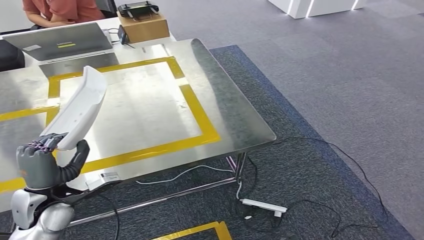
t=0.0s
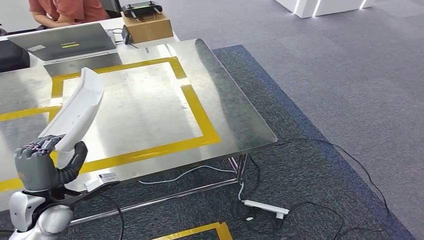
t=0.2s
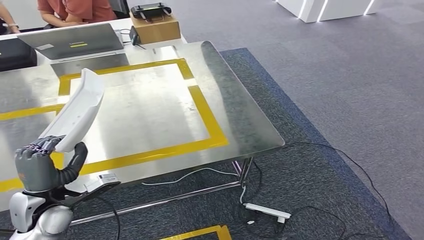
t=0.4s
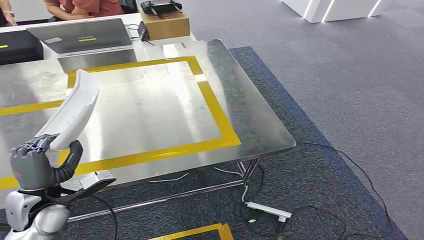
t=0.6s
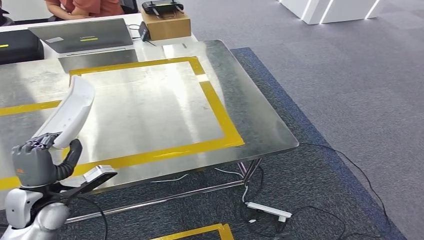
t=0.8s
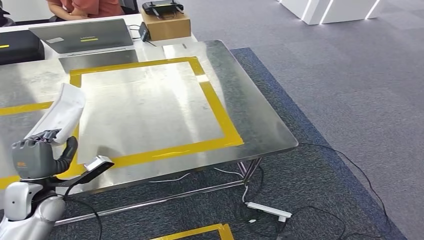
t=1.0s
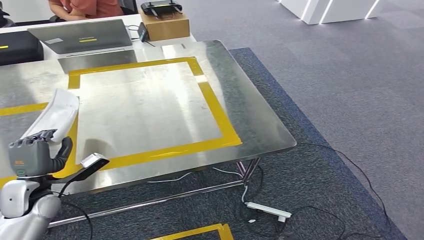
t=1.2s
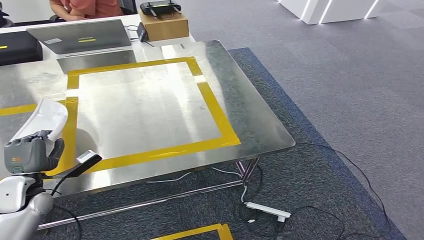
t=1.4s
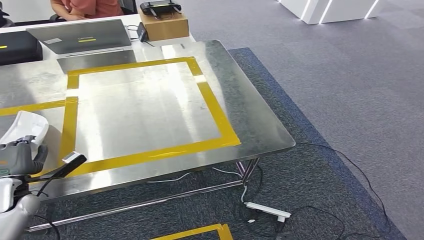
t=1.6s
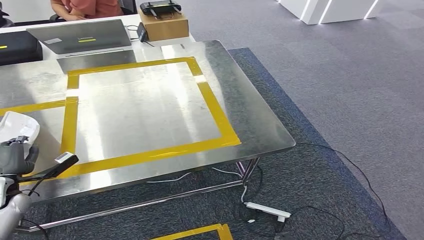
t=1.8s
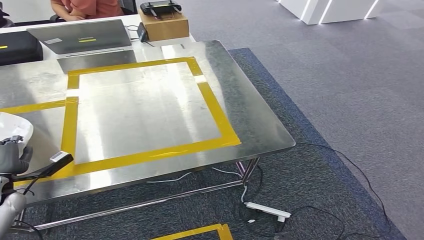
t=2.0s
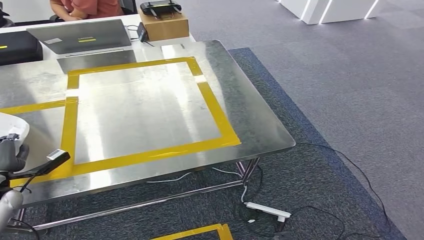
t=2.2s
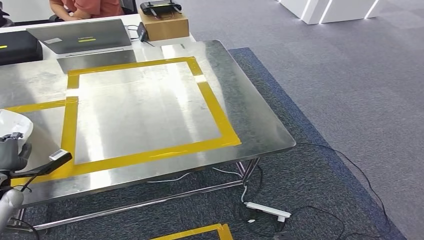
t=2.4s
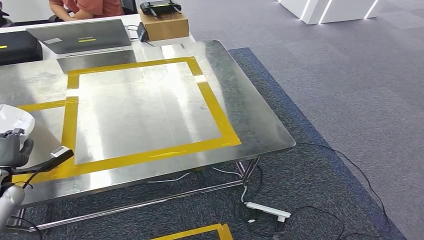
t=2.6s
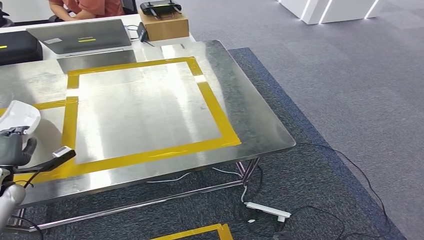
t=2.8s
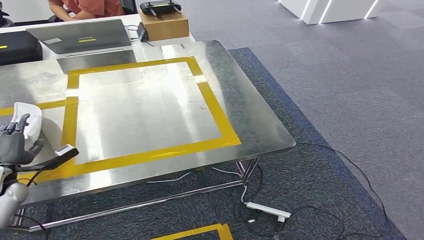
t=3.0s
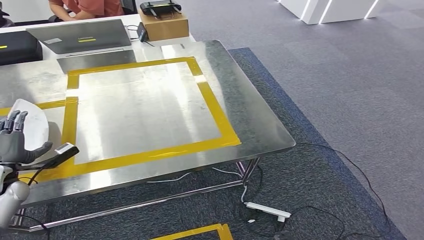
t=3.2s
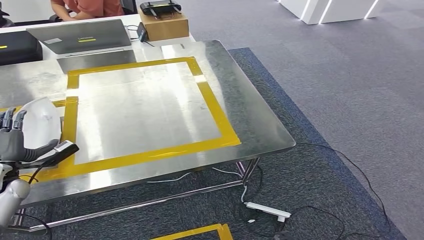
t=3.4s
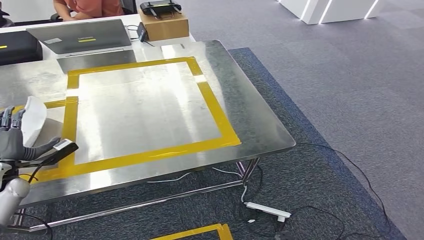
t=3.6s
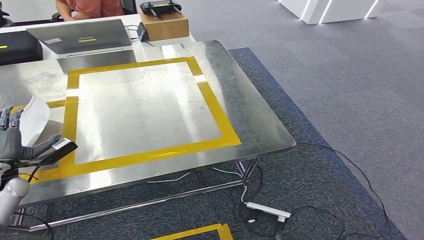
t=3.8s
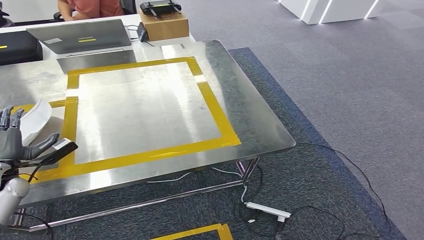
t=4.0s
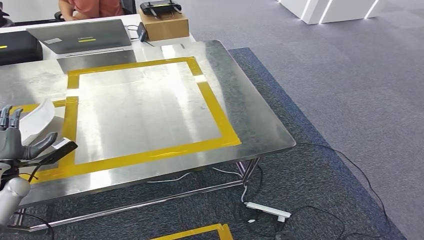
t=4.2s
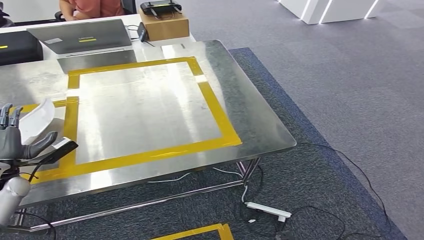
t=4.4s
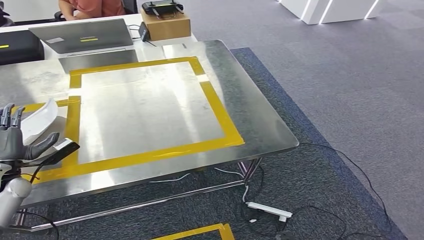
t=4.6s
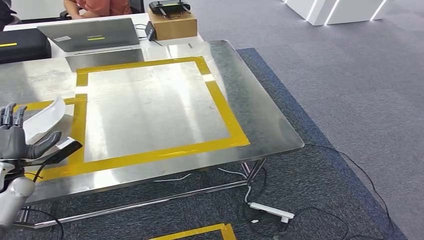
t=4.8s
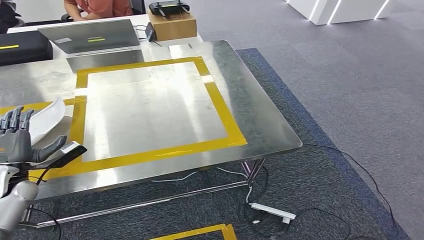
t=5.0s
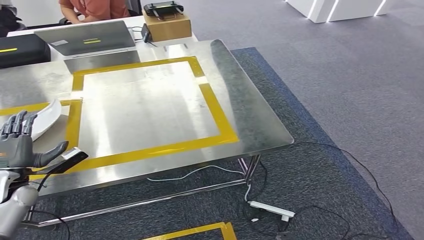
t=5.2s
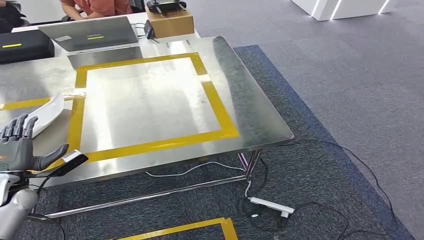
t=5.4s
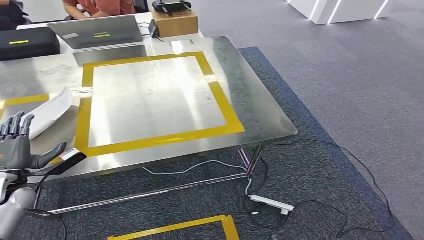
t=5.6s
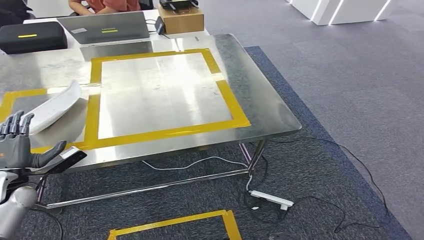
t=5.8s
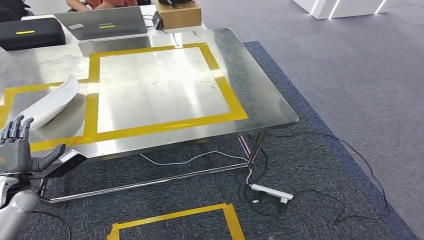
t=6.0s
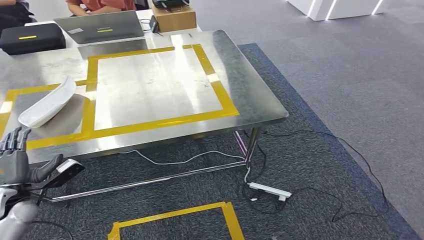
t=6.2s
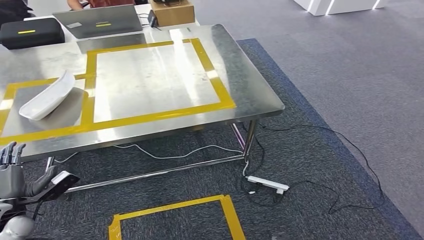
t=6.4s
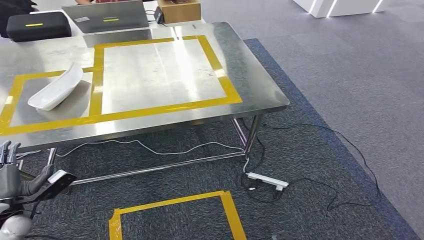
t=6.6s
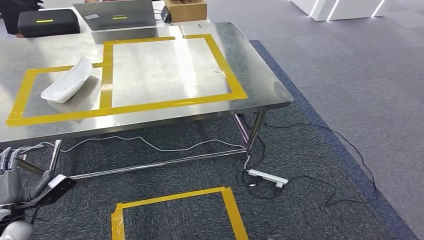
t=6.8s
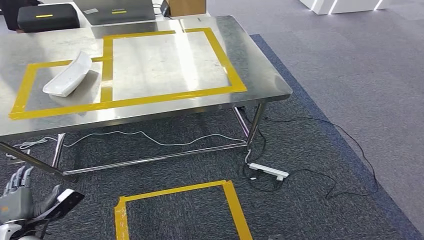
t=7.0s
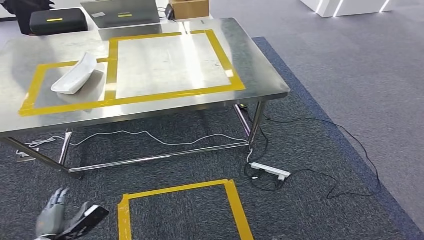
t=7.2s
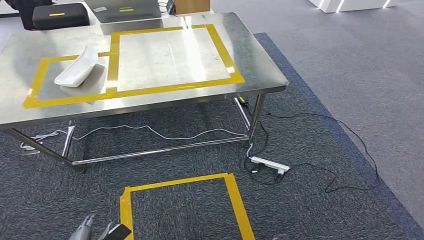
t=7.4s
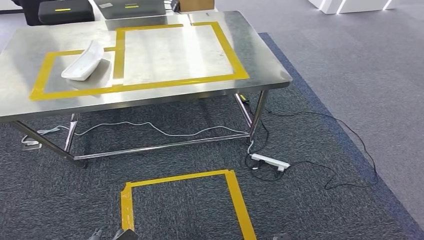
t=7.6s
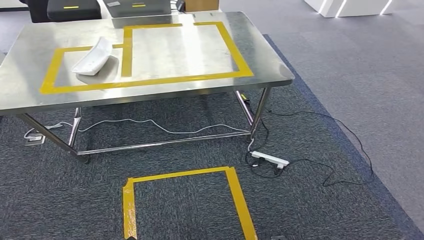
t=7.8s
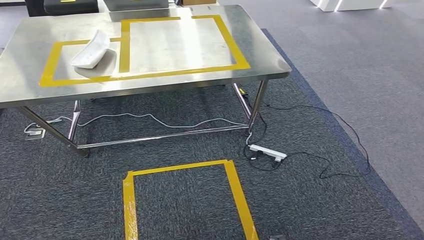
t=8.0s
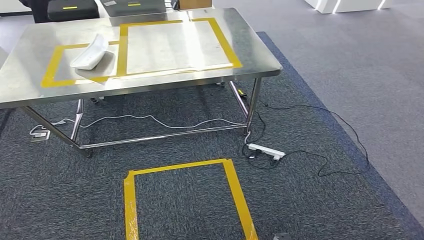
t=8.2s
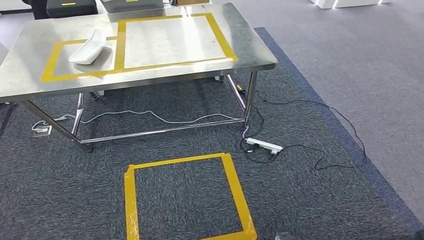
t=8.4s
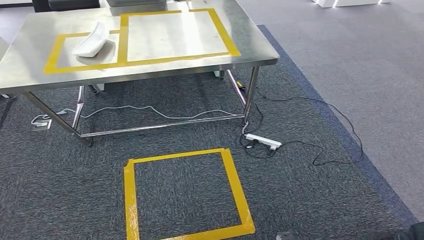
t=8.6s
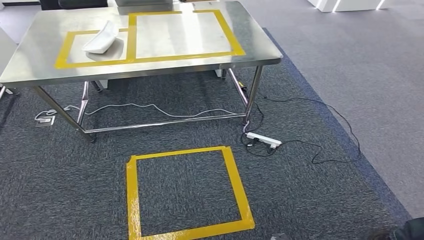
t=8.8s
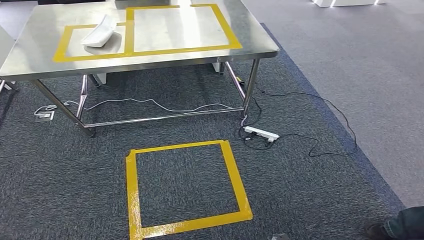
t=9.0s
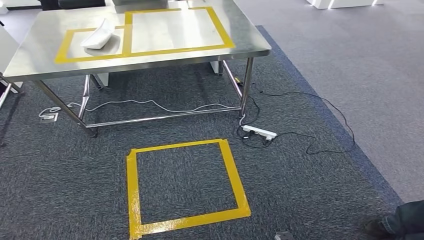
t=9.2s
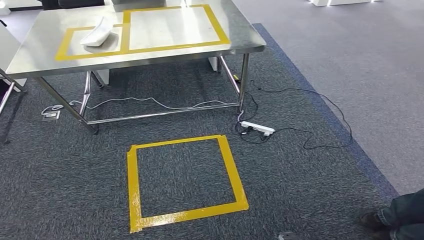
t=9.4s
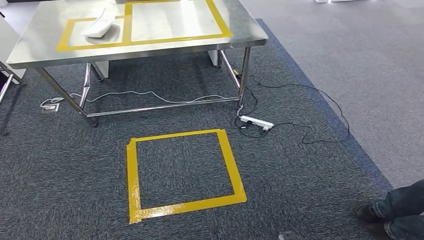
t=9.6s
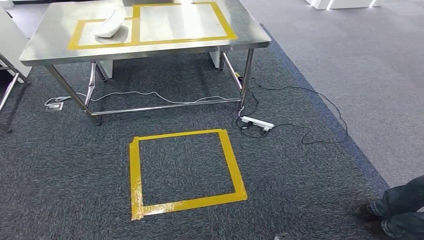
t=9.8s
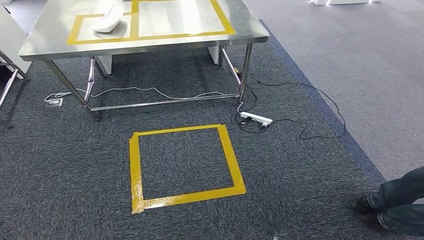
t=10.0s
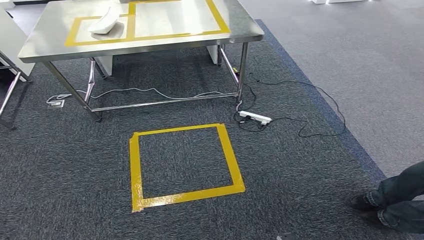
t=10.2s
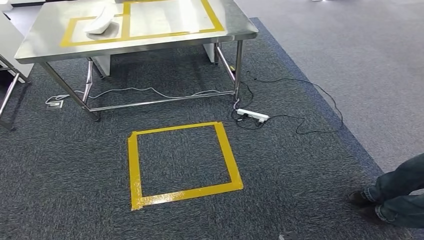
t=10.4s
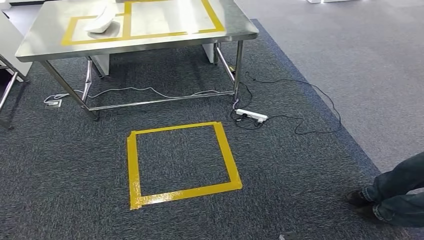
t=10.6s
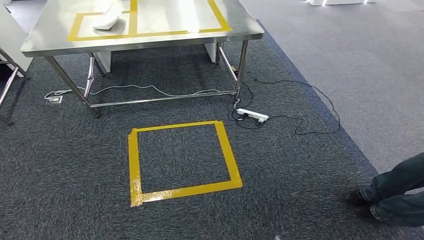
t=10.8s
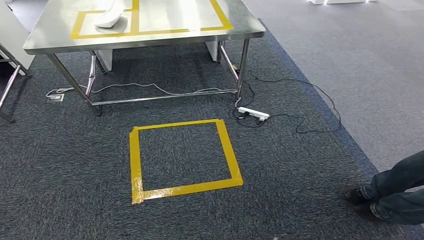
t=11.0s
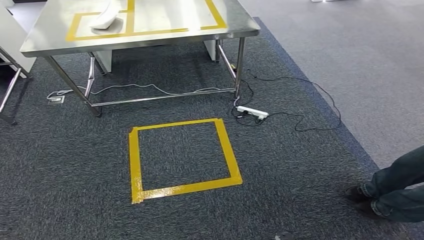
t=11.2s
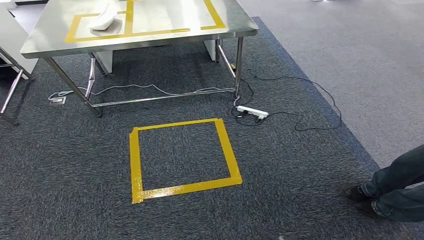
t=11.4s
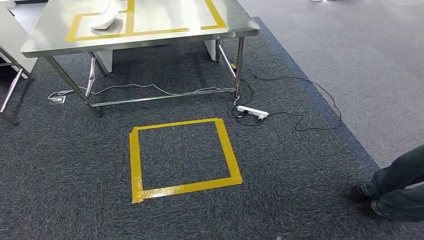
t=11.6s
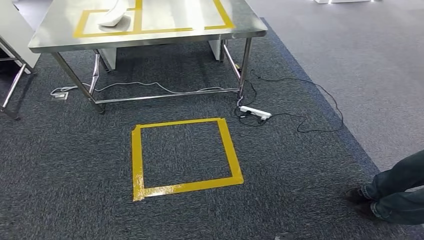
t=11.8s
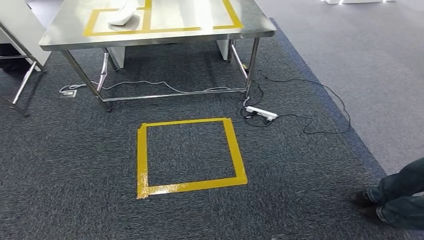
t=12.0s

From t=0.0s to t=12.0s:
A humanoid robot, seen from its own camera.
Step, from t=0.0s to t=6.2s: Insert the small component into the corresponding slot on the workbench.
From t=1.6s to t=4.4s: The hands move only a little.
From t=10.4s to t=12.0s: Both hands stay put.

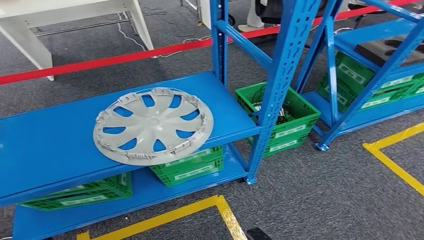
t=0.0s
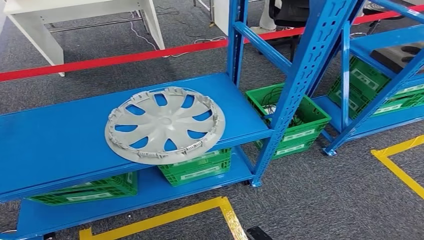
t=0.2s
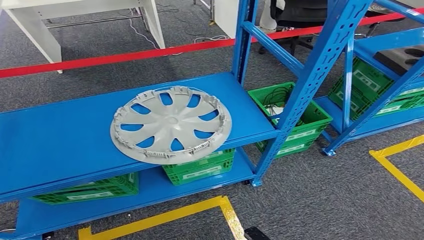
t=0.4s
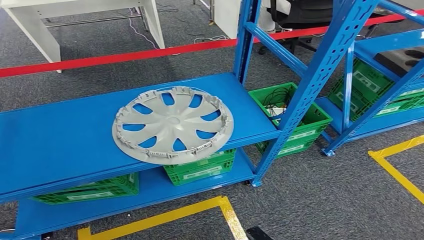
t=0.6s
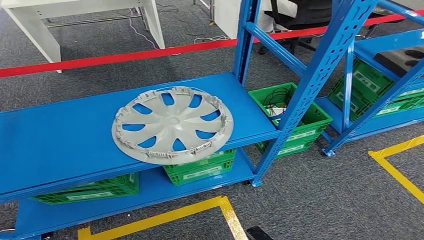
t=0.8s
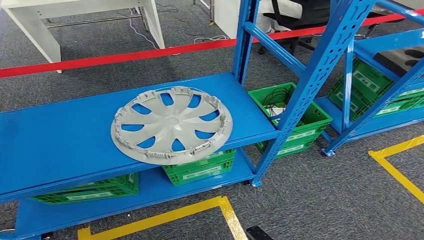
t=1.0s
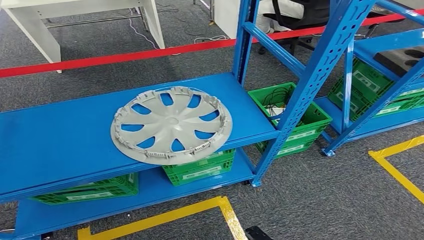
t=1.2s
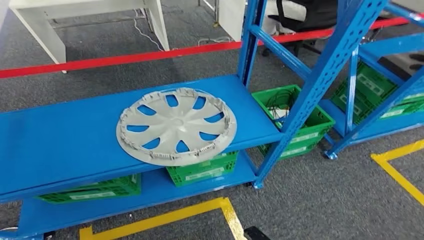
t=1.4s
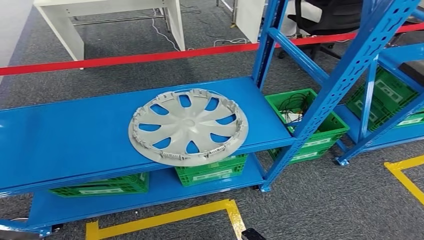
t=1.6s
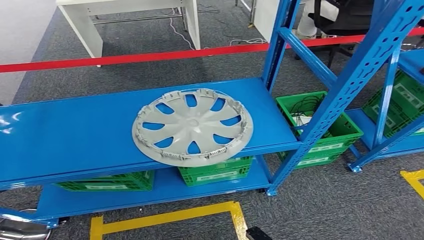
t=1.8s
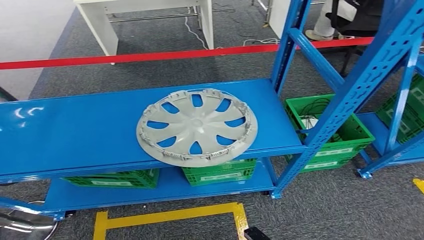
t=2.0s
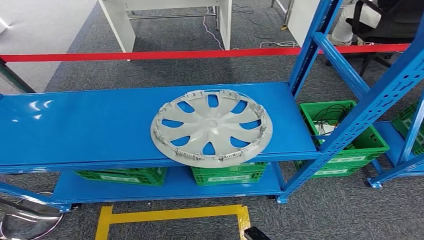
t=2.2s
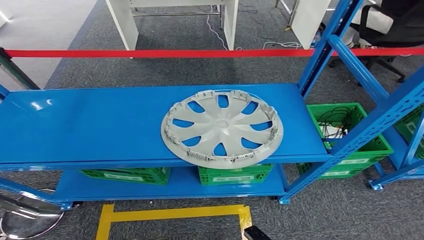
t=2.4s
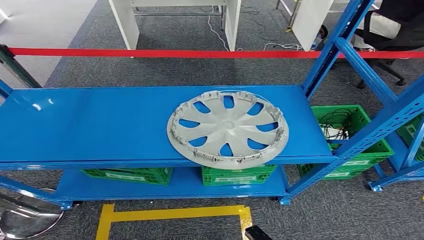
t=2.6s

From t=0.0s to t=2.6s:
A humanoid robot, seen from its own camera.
Step, from t=0.0s to t=2.4s: Move to the initial position of the workbench.
